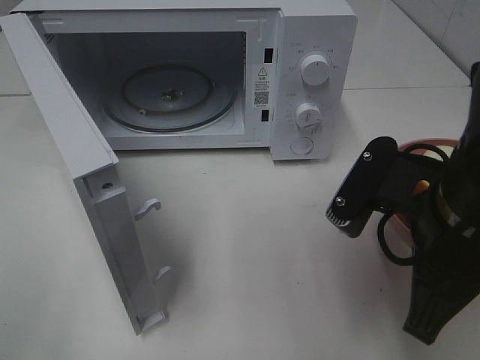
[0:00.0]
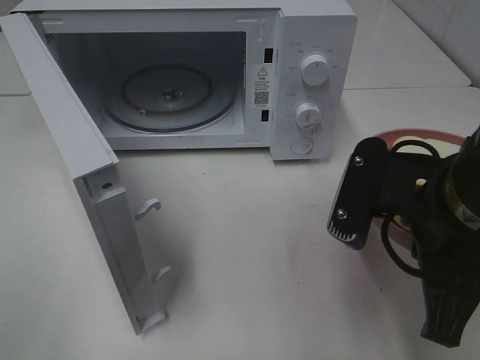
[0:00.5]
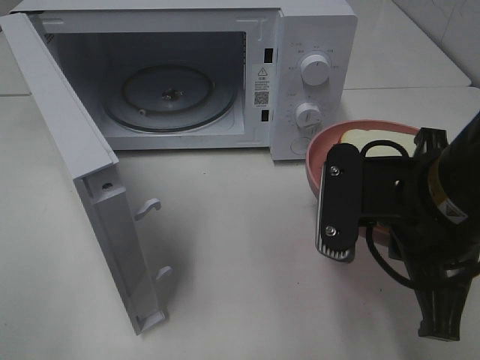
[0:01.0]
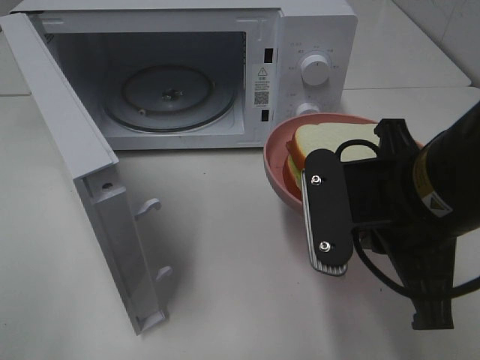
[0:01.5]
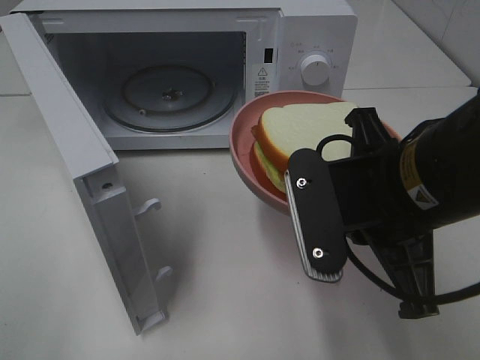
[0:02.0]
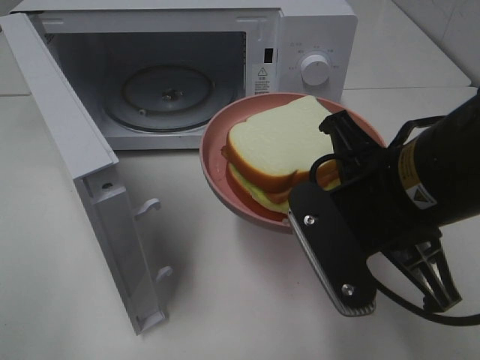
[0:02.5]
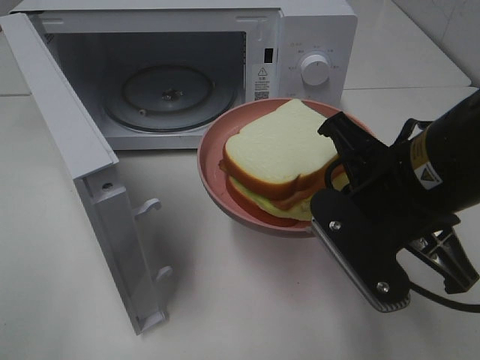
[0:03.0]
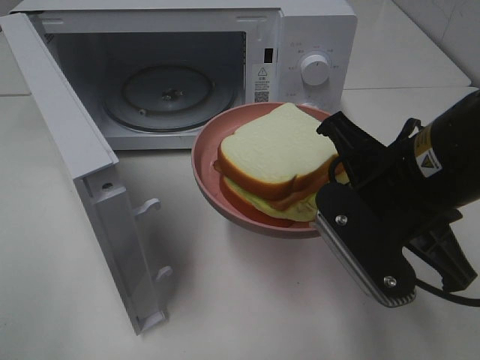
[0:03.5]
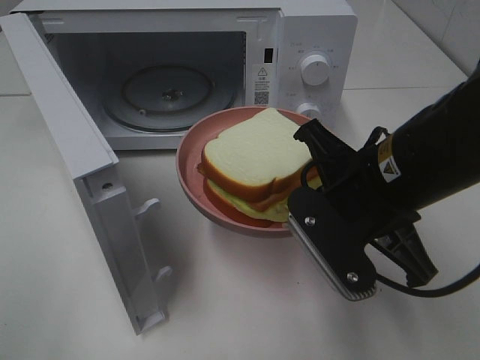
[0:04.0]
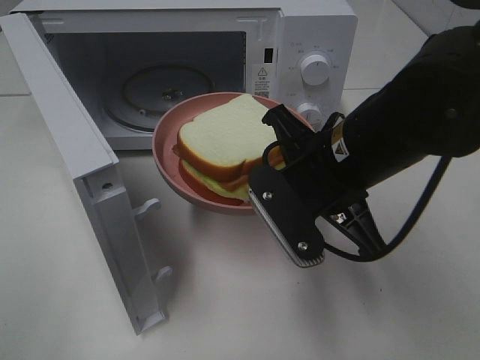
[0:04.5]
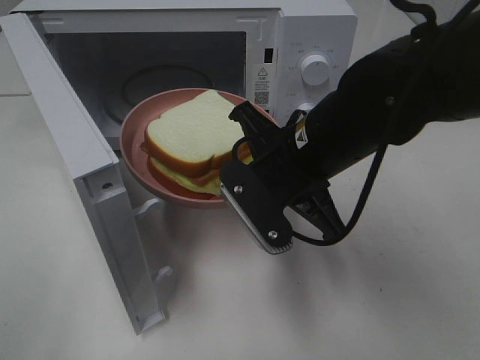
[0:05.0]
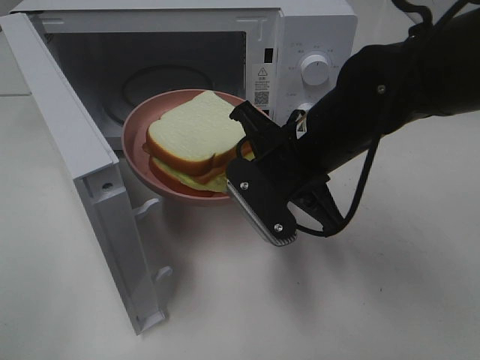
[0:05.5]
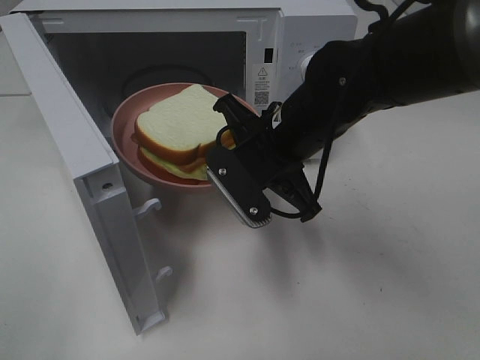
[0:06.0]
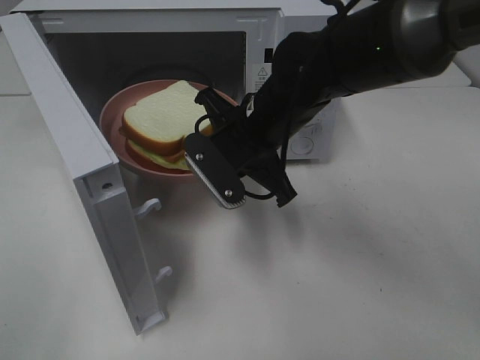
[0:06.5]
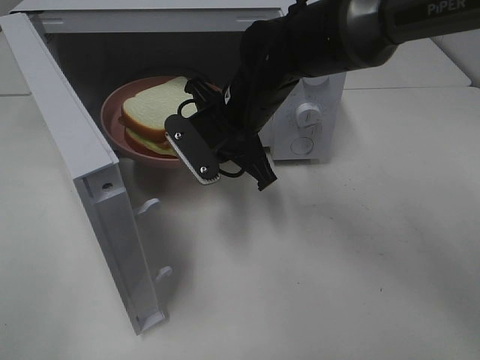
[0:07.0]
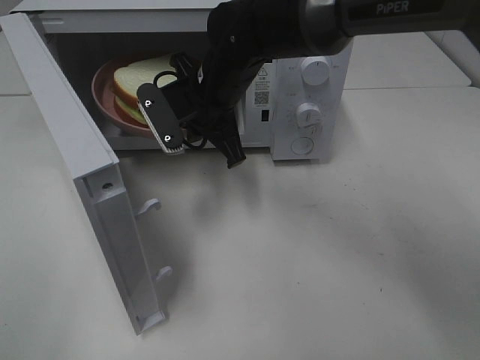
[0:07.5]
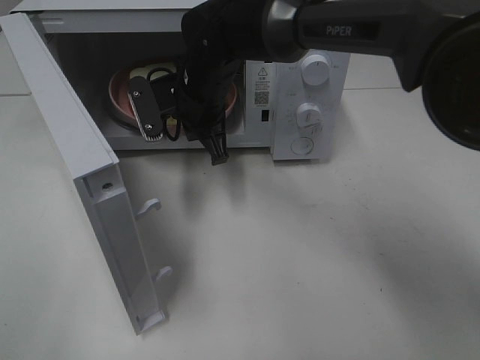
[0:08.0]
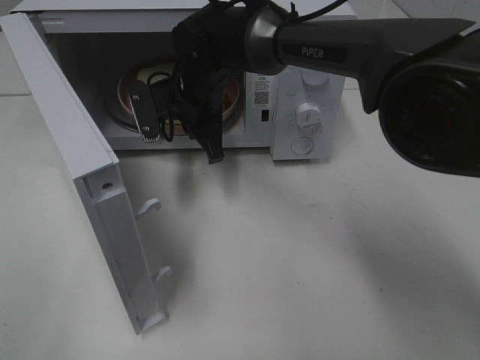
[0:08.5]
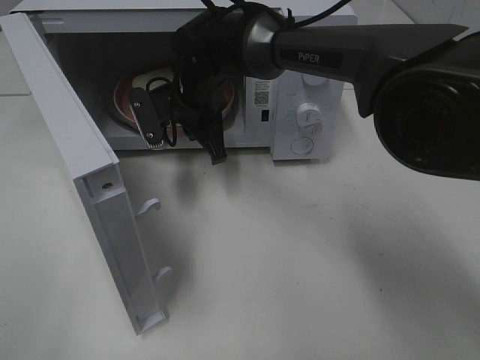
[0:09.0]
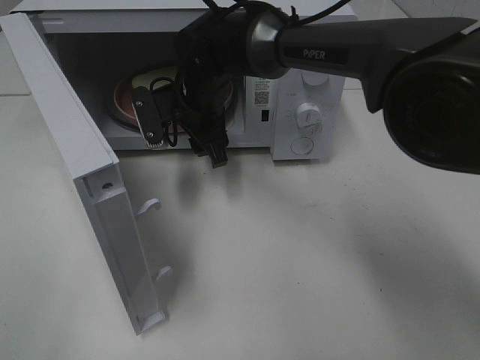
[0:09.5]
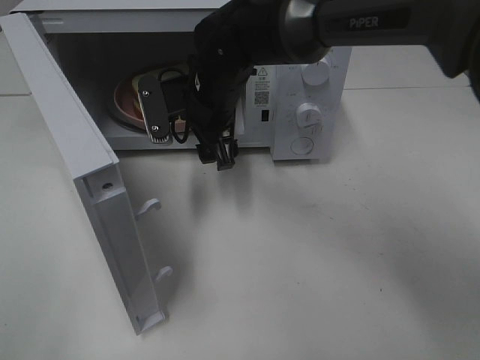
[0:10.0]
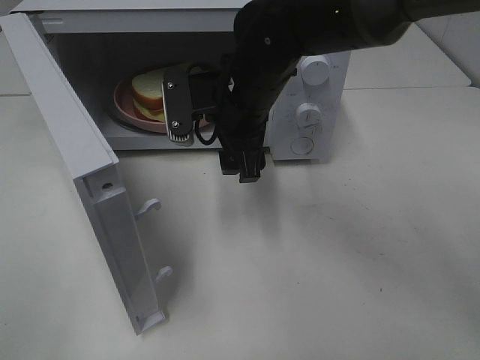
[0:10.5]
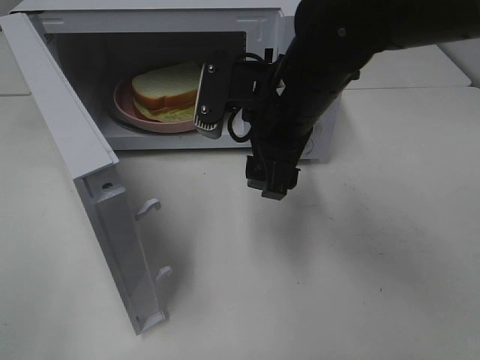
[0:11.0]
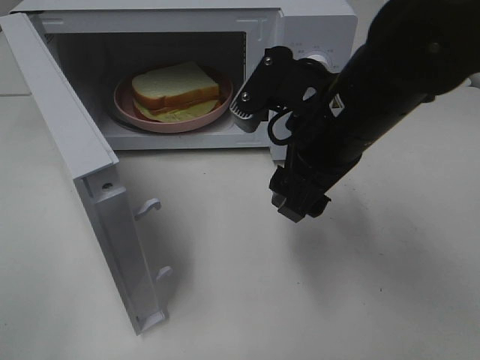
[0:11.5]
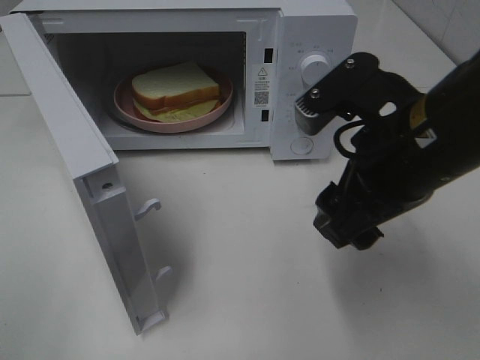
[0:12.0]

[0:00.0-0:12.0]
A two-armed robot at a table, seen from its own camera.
Task of the whole recording: Heat Sandwich.
Step, 0:00.0 to 0:10.5: Right hand: place the plate in the microwave.
0:04.0 to 0:06.0: The right gripper heads forward and to the left, covering roughly 10 cm.
0:06.0 to 0:08.0: The right gripper moves forward and to the left, about 15 cm.
0:08.0 to 0:10.0: The right gripper opens.
0:10.0 to 0:12.0: The right gripper goes approximately 25 cm backward and to the right.

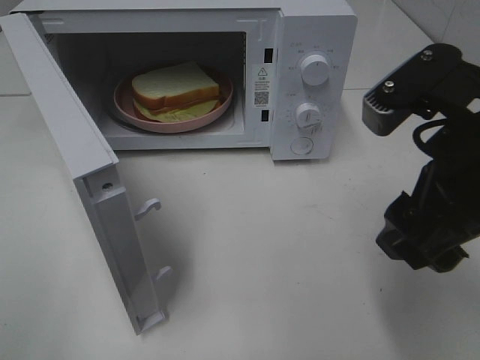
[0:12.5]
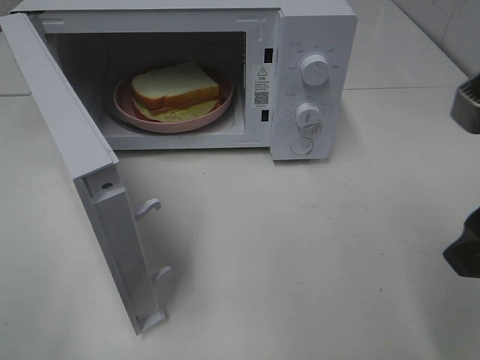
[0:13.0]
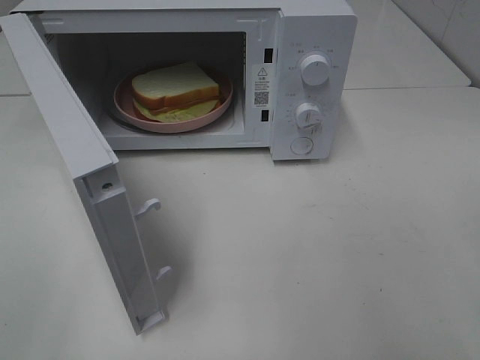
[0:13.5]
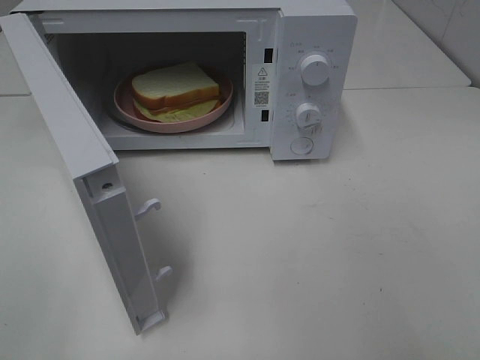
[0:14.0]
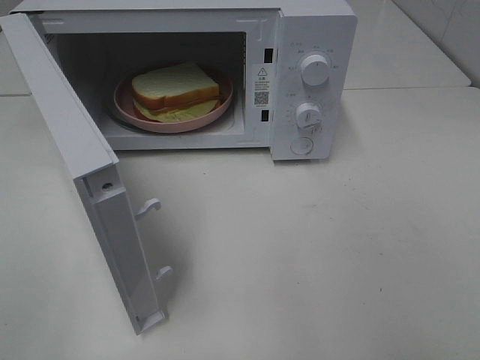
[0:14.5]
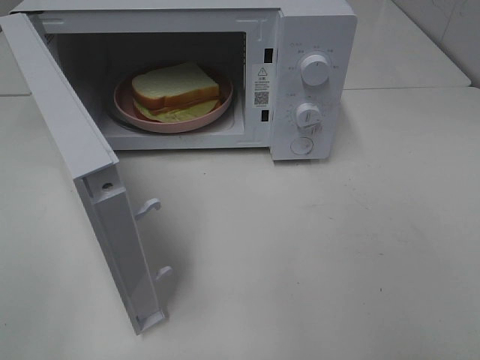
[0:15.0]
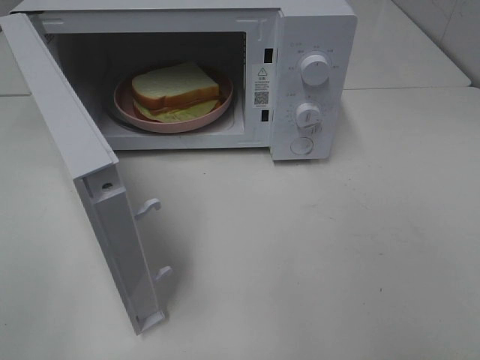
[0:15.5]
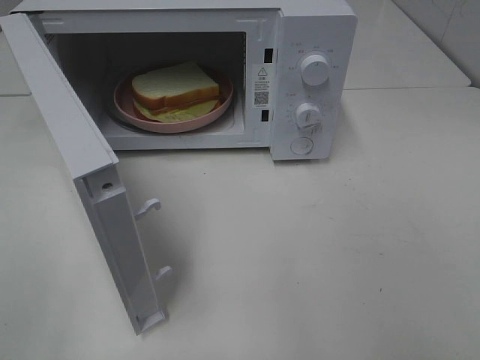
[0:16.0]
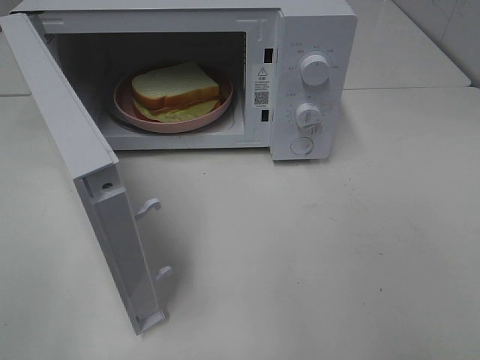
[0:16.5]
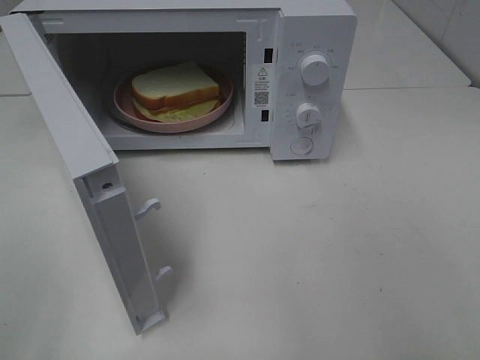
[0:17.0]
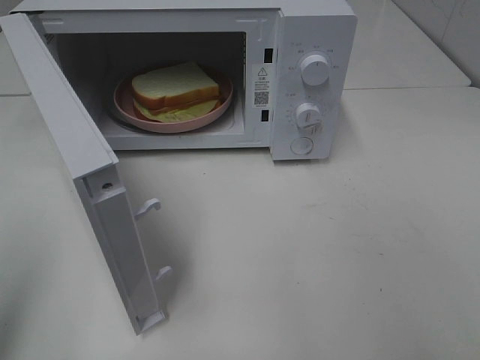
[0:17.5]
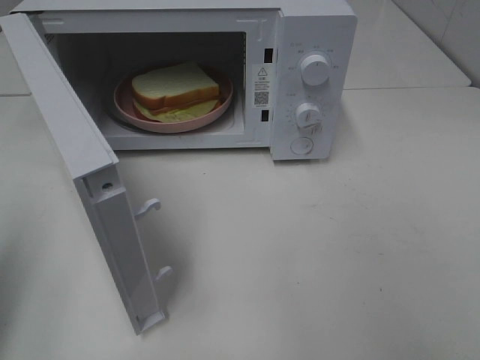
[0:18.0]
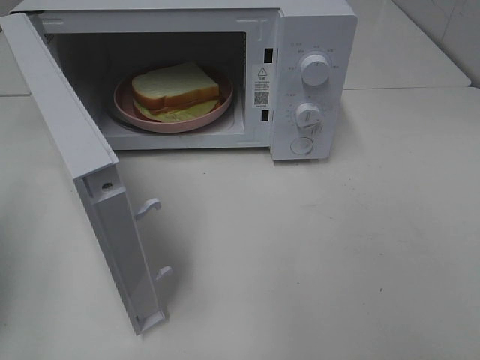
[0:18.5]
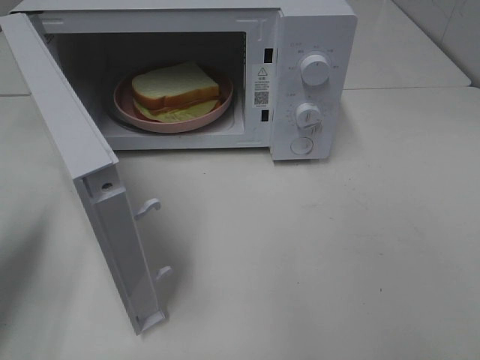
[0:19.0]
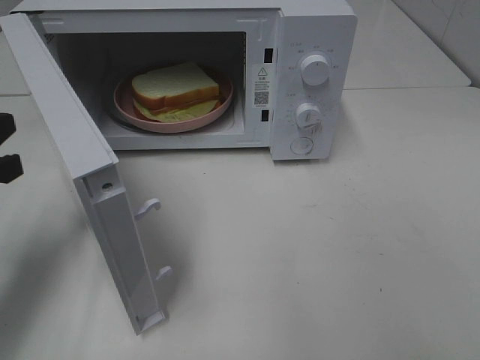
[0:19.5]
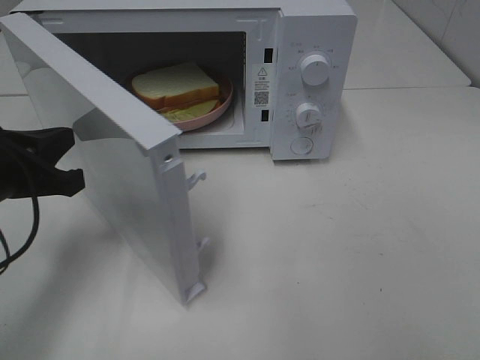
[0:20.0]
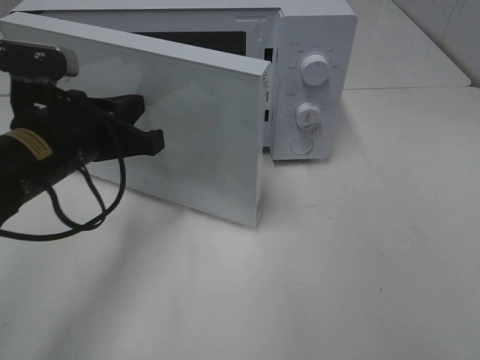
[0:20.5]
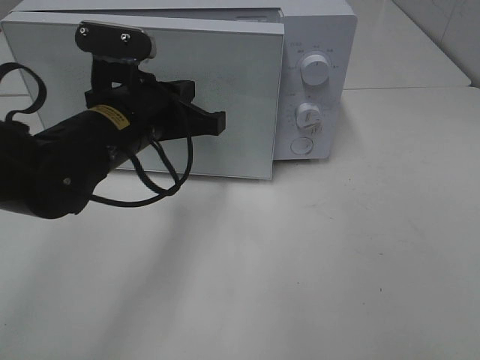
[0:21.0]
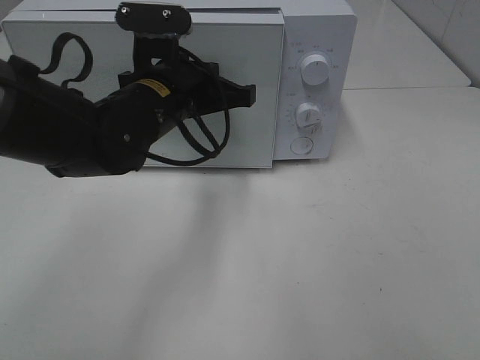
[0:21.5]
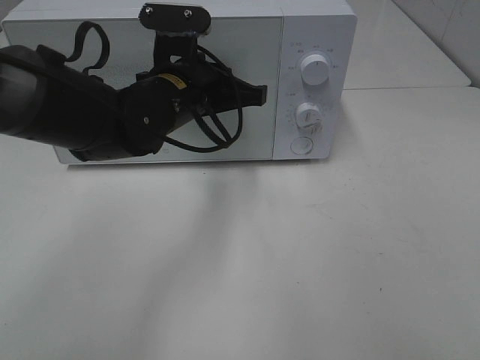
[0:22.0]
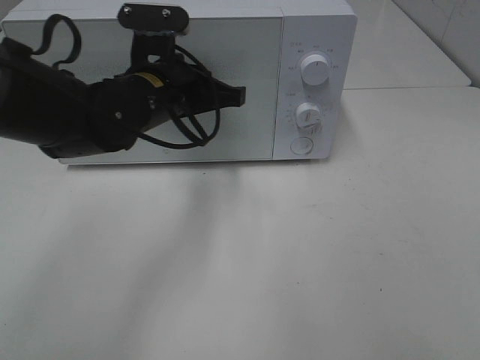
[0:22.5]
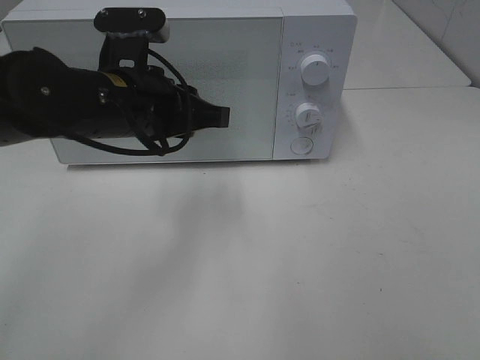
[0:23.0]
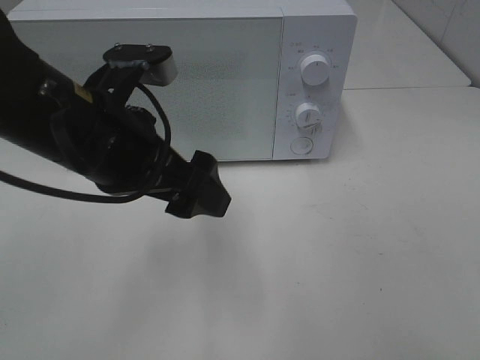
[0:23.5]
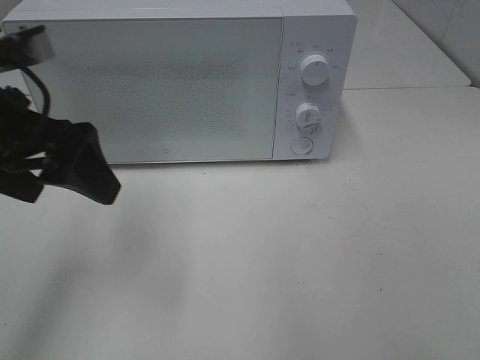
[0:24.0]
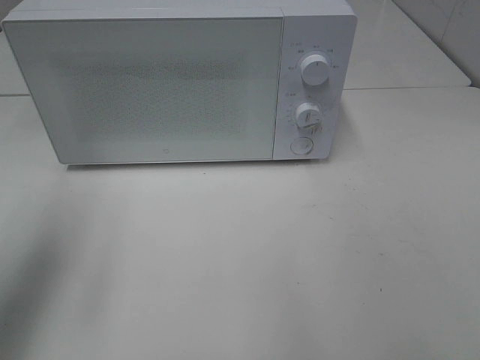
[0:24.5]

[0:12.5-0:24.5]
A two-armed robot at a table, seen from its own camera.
Task of the whole recording: Heat Sandwich.
Step, 0:12.5 to 0:23.0: Left hand: close the microwave door.
0:12.5 to 0:14.5: The right gripper goes approximately 20 cm backward and to the right.
0:14.5 to 0:16.5: Both grippers stay put.
0:16.5 to 0:18.5: The left gripper heads forward, covering roughly 15 cm, and closes up.
0:18.5 to 0:20.5: The left gripper goes about 20 cm to the right and forward.
0:20.5 to 0:22.5: The left gripper moves to the right and forward, about 10 cm.
0:22.5 to 0:24.5: The left gripper is displaced to the left, backward and upward by about 25 cm, and opens.

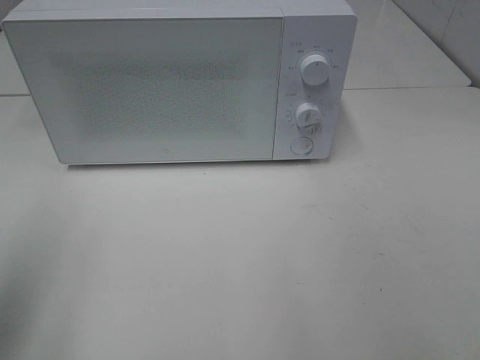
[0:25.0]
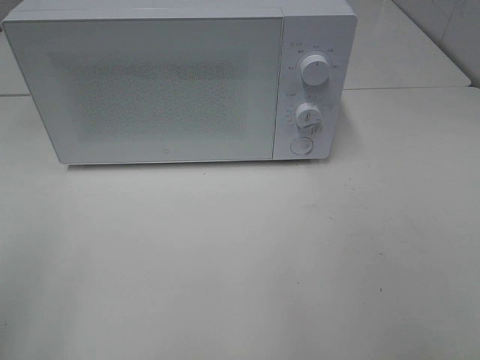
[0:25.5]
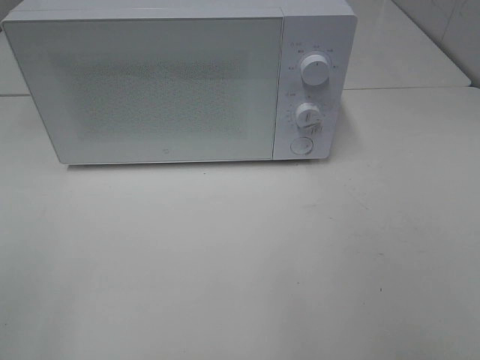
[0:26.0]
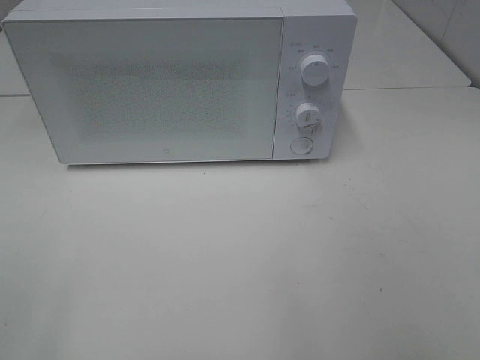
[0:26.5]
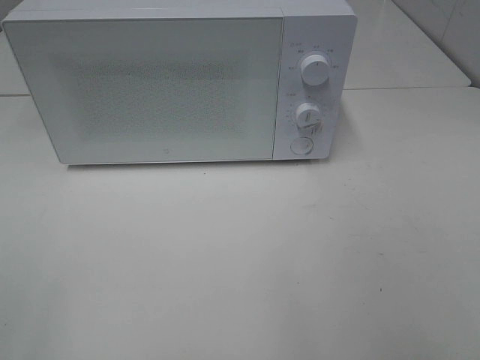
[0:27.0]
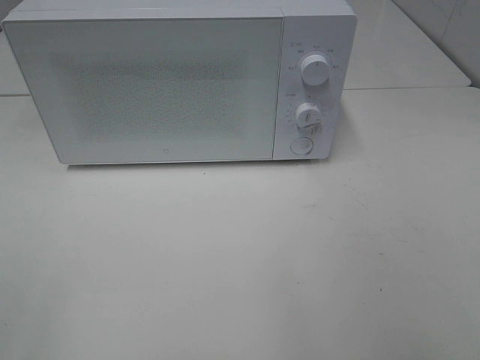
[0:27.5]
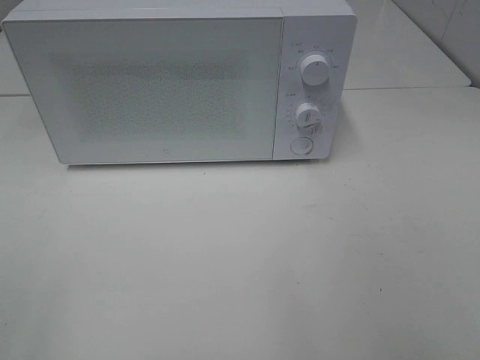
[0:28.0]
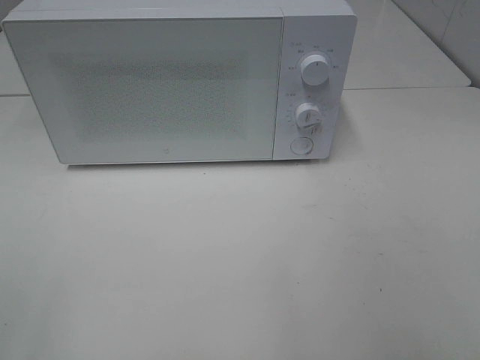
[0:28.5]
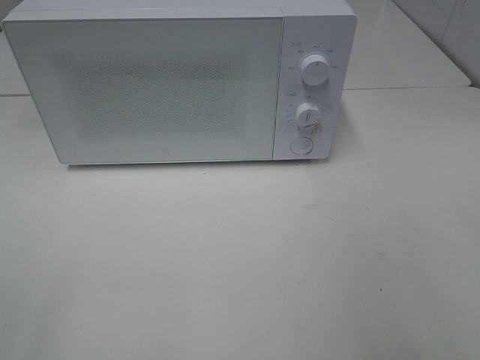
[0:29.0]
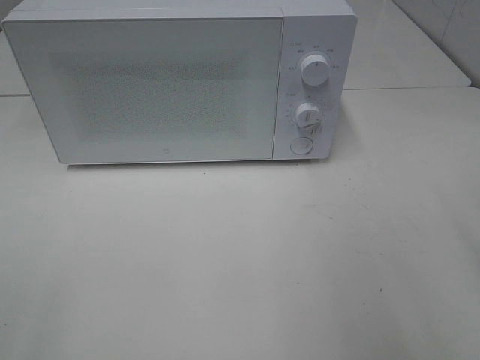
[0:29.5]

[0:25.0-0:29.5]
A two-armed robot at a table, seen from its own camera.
Task of the whole recording: Heat Sandwich.
0:25.0 to 0:27.0: The left gripper moves backward, some 15 cm.
